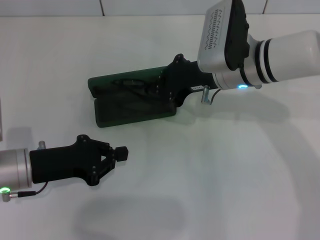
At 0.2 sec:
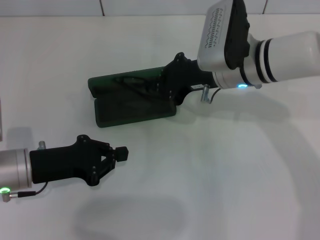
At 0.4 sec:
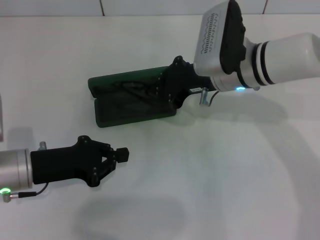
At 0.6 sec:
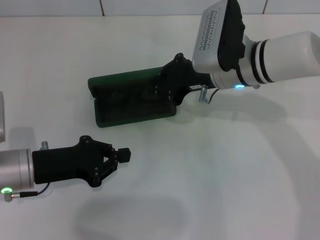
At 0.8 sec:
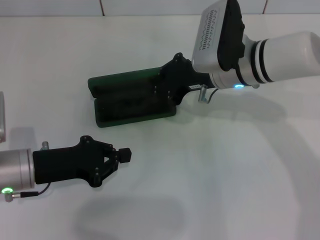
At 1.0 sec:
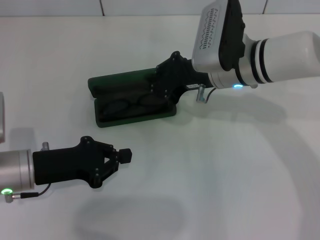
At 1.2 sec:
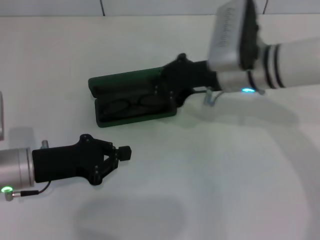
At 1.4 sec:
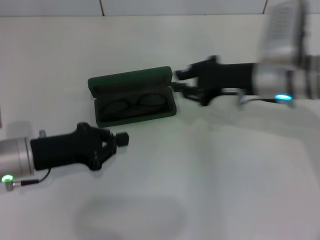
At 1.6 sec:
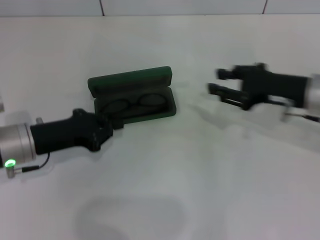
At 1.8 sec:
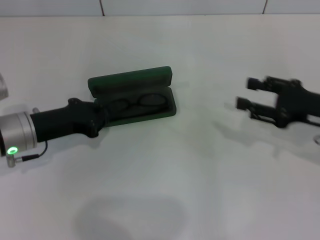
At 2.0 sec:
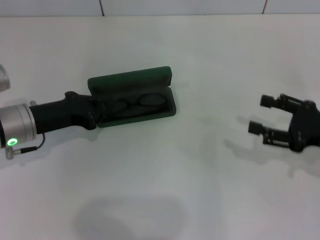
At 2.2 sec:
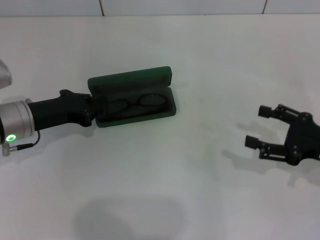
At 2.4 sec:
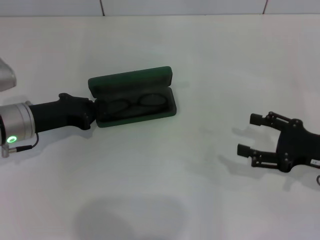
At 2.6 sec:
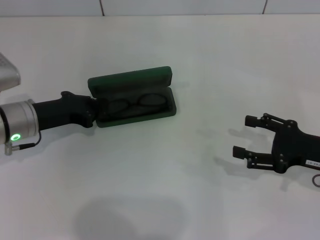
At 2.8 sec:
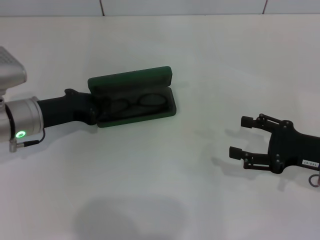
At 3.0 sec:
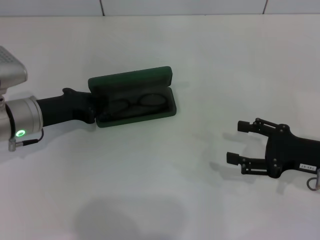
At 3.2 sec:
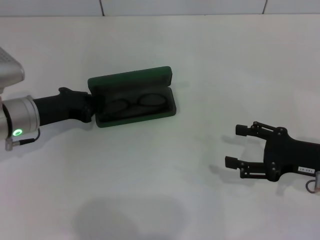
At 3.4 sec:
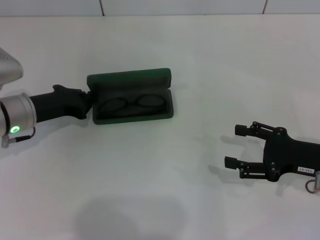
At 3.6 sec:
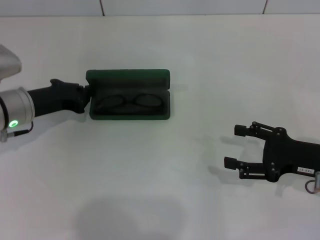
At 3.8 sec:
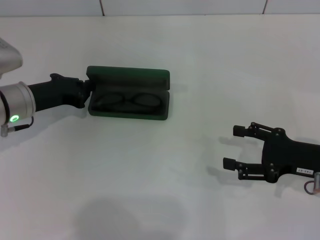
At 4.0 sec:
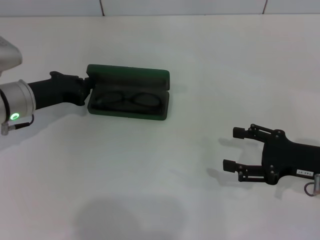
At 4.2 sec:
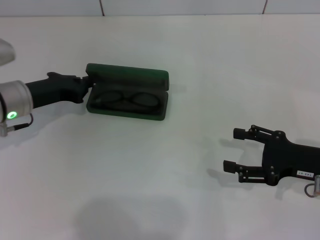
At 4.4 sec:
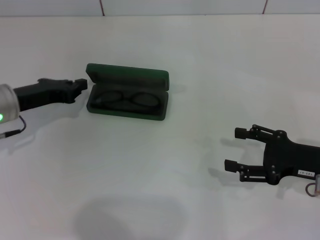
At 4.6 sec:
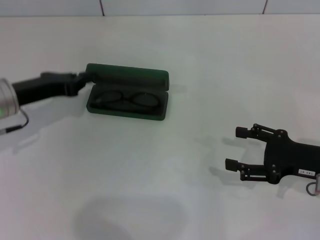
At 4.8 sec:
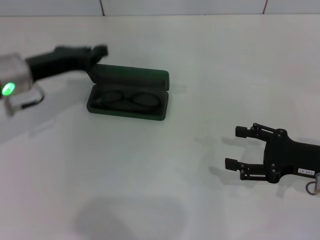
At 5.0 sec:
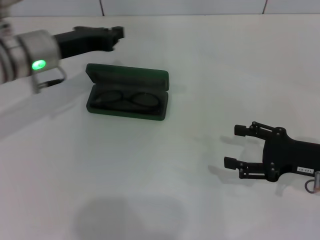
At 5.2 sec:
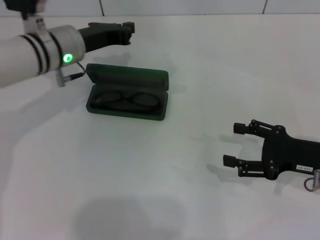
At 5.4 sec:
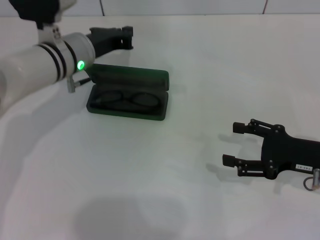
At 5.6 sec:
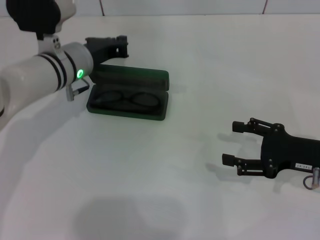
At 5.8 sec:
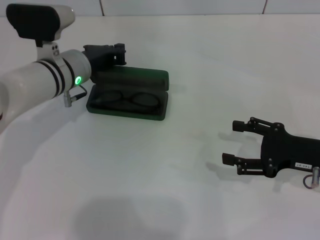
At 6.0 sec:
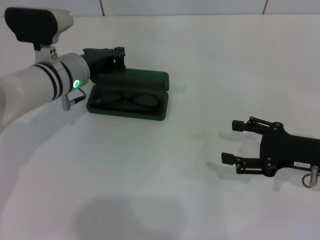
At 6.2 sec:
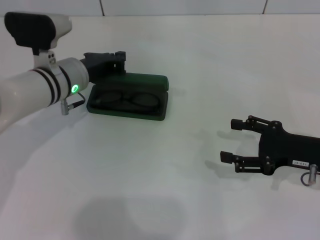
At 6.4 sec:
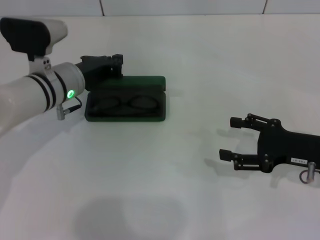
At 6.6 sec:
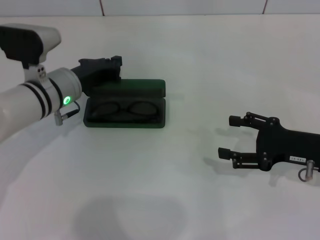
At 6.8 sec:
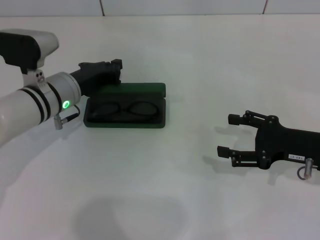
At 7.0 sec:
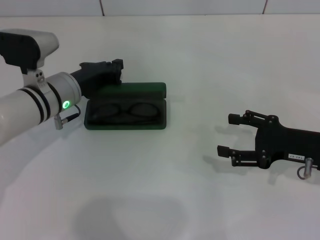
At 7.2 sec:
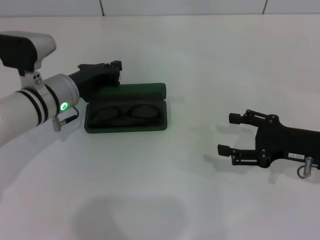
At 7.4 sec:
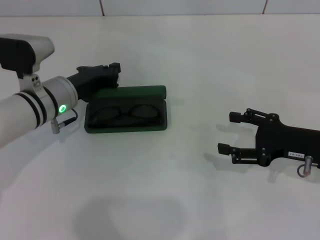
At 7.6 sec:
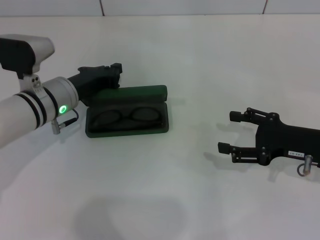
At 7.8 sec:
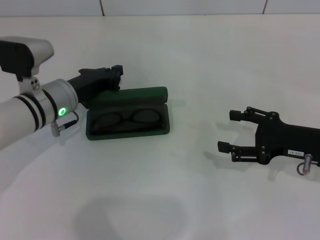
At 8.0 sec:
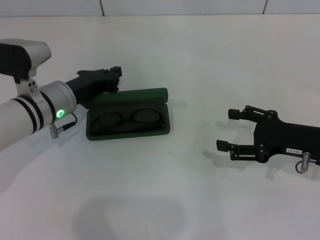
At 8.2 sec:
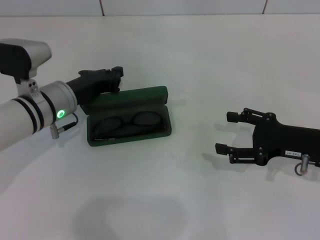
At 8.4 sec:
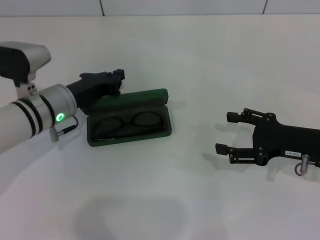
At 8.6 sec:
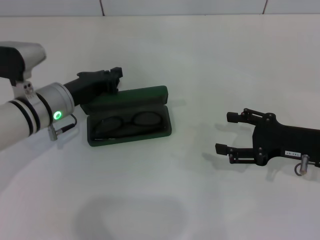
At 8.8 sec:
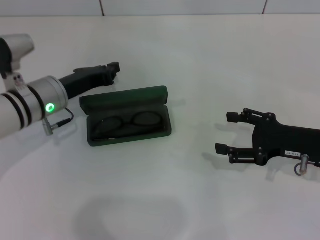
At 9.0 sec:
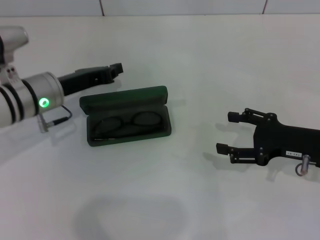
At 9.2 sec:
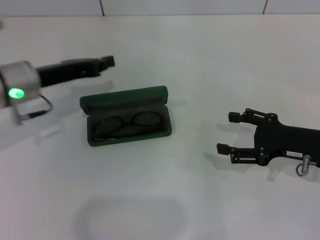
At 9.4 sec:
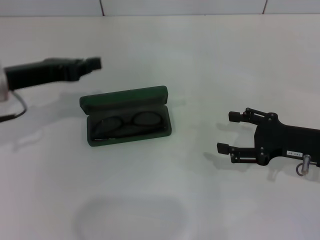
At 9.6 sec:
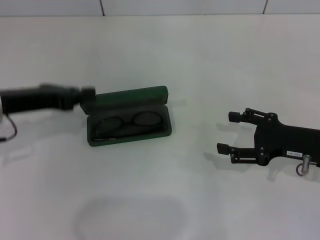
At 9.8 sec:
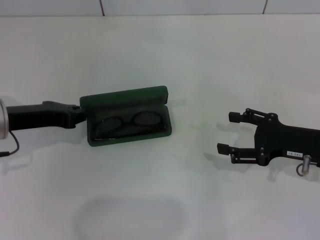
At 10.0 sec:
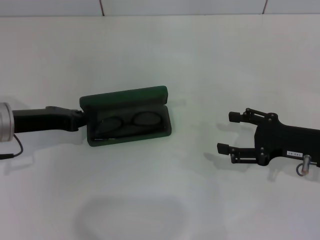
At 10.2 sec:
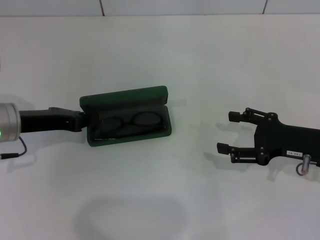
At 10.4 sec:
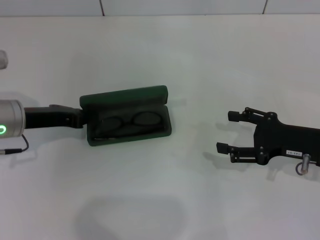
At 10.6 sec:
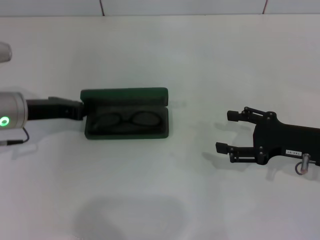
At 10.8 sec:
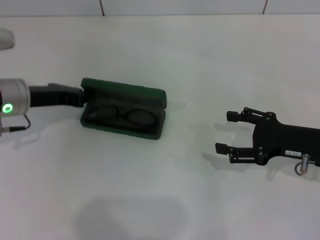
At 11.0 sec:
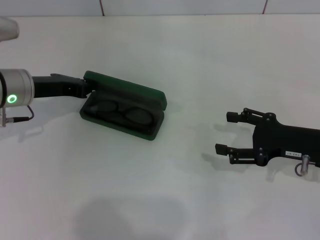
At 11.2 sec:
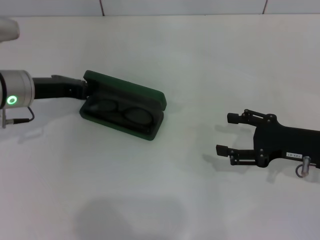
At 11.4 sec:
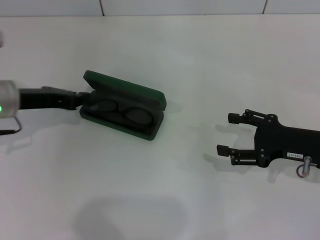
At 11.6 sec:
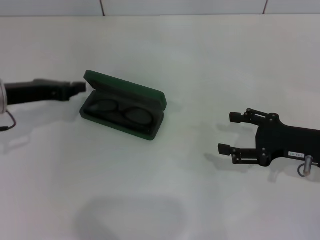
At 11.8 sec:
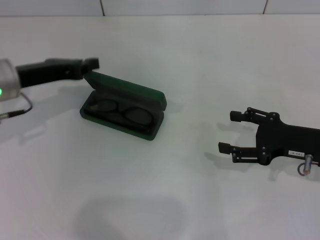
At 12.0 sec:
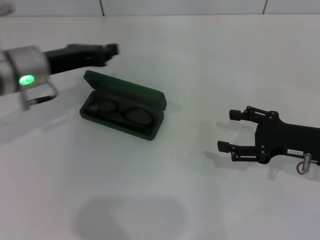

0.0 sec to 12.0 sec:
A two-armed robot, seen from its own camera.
0.0 sec to 1.6 sec: The right gripper travels to the right by roughly 15 cm.
1.6 sec to 3.0 sec: The right gripper shifts about 10 cm backward and downward, and opens.
3.0 sec to 4.4 sec: The grippers move only a little.
4.4 sec to 6.0 sec: The left gripper is displaced to the right and forward by approximately 10 cm.
6.0 sec to 9.0 sec: The grippers make only small movements.
9.0 sec to 10.4 sec: The left gripper moves to the left, approximately 5 cm.
10.4 sec to 12.0 sec: The left gripper shifts by some 5 cm.

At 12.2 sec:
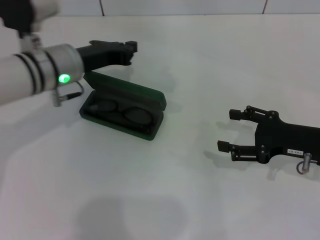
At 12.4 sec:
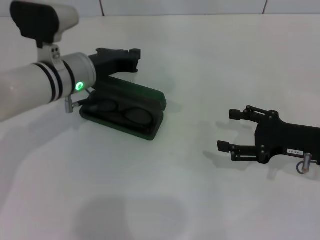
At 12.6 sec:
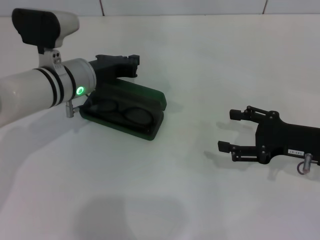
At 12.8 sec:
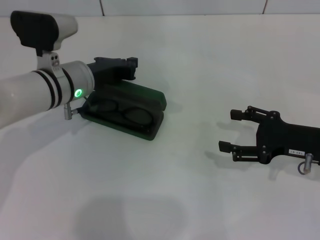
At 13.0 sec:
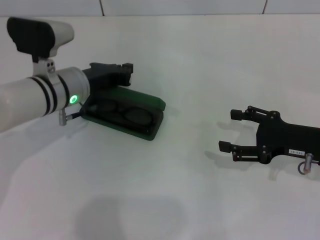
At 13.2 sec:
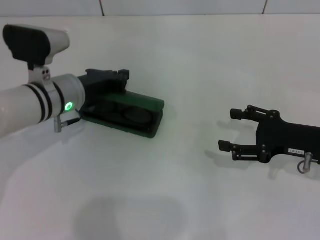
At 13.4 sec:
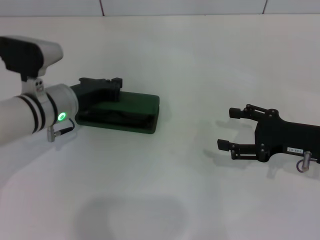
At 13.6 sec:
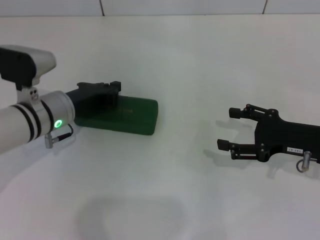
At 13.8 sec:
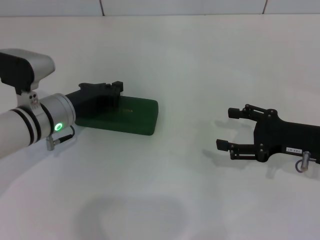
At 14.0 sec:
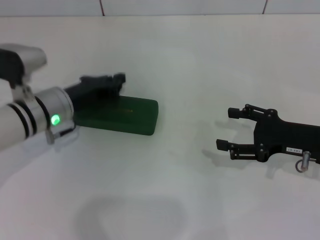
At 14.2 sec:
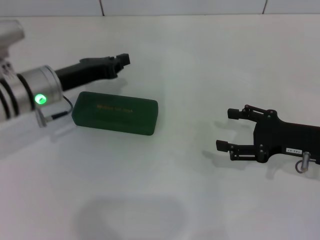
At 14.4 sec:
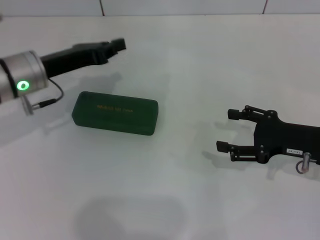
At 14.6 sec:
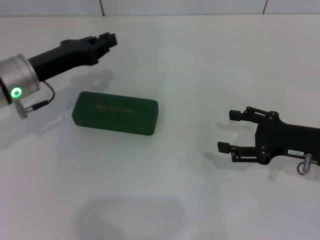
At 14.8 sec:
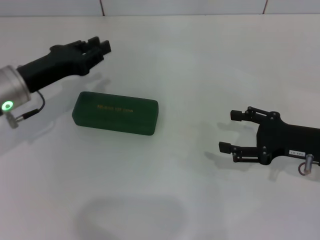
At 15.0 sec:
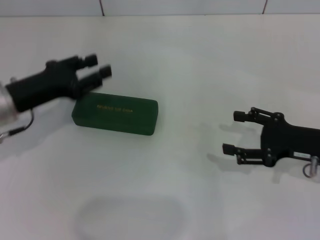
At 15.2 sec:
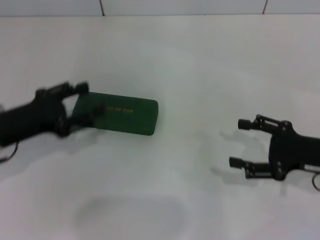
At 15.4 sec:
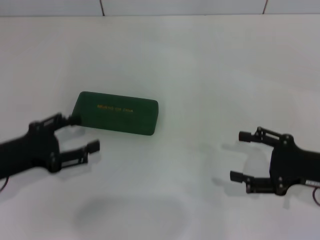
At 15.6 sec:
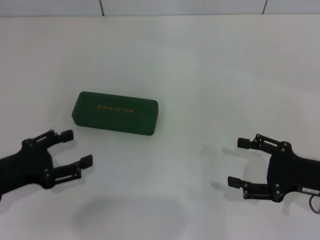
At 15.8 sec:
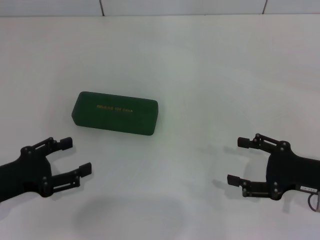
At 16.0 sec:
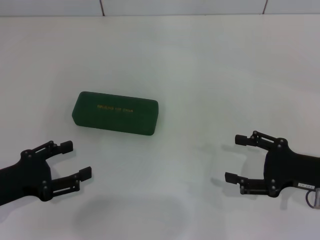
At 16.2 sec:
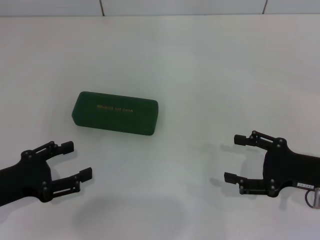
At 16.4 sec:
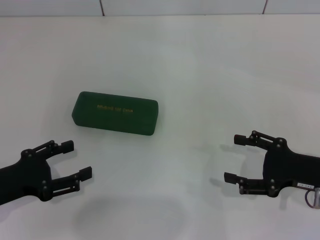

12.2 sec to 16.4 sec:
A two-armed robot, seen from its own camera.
12.2 sec to 13.6 sec: The left gripper goes roughly 5 cm downward.
13.6 sec to 15.0 sec: The left gripper heads to the left, covering about 5 cm, and opens its fingers.
15.0 sec to 16.4 sec: The left gripper heads backward, covering about 10 cm, and opens.
